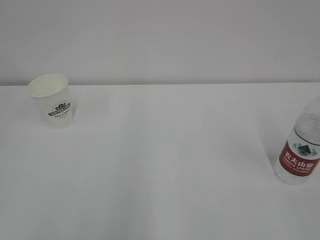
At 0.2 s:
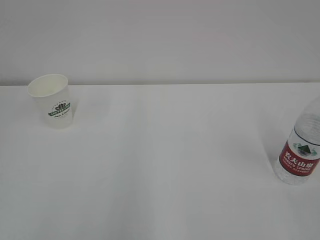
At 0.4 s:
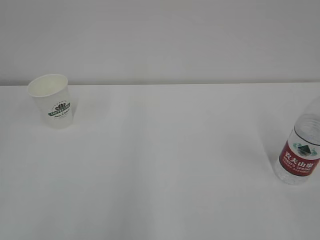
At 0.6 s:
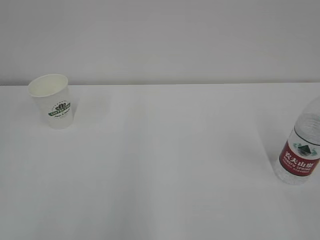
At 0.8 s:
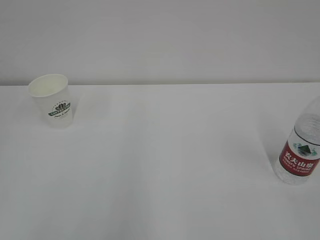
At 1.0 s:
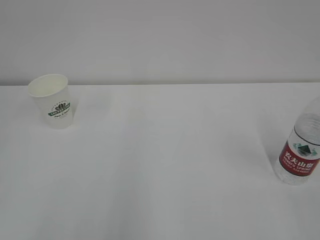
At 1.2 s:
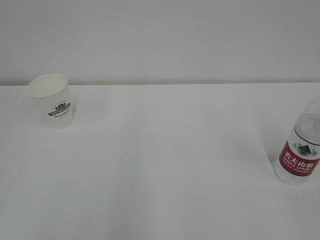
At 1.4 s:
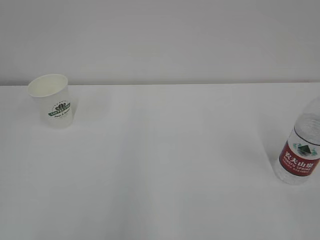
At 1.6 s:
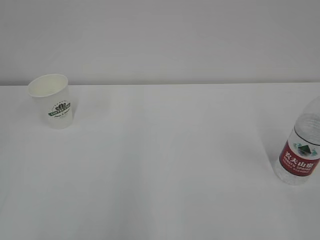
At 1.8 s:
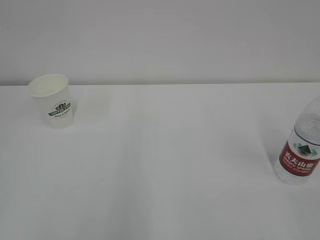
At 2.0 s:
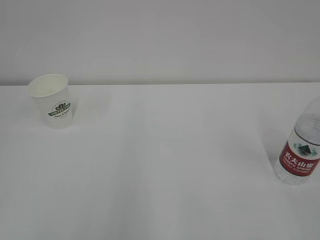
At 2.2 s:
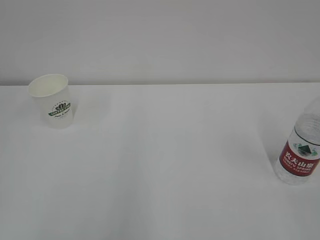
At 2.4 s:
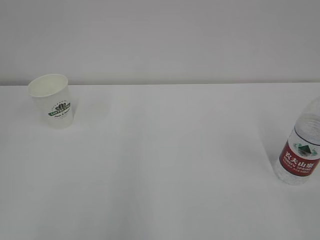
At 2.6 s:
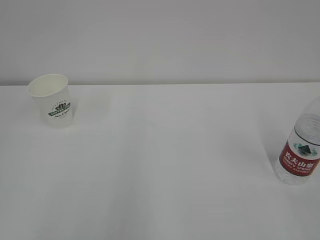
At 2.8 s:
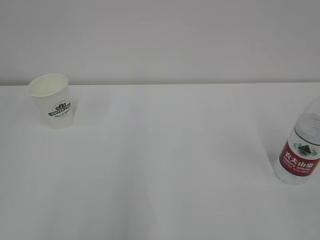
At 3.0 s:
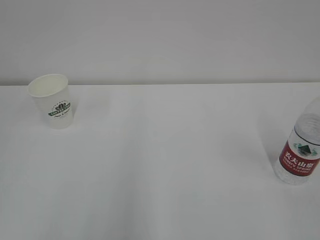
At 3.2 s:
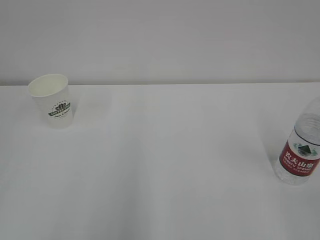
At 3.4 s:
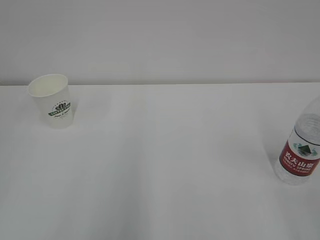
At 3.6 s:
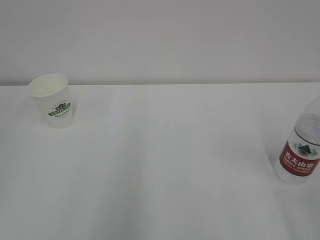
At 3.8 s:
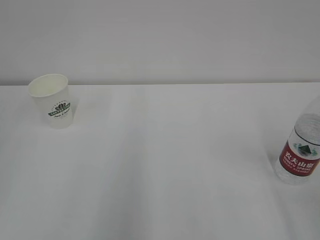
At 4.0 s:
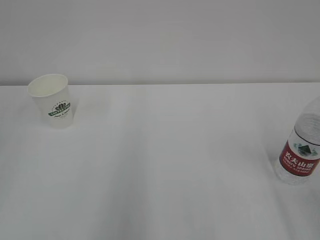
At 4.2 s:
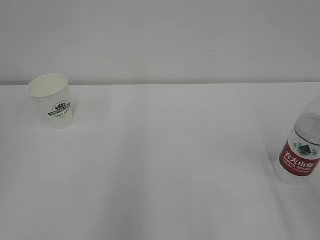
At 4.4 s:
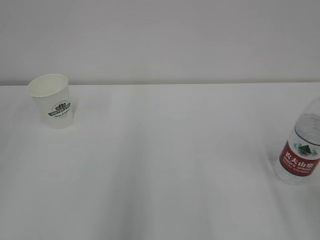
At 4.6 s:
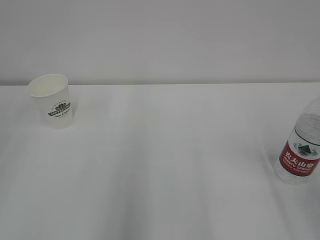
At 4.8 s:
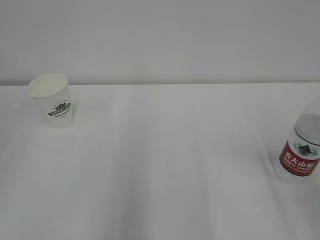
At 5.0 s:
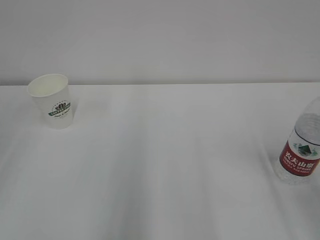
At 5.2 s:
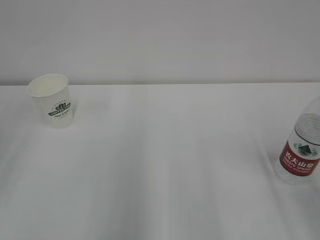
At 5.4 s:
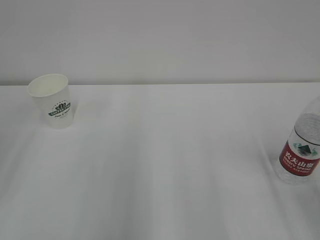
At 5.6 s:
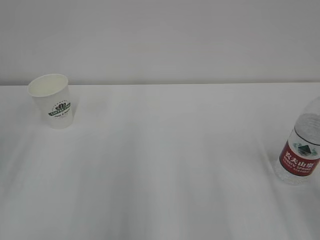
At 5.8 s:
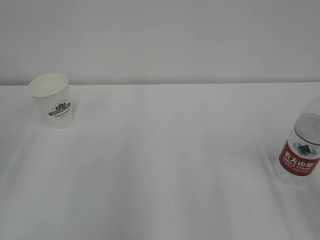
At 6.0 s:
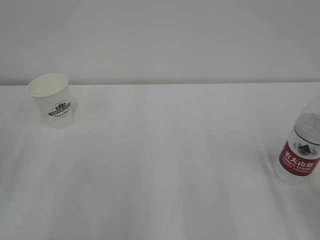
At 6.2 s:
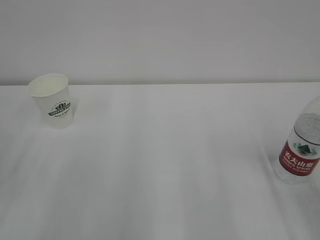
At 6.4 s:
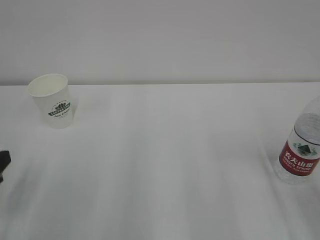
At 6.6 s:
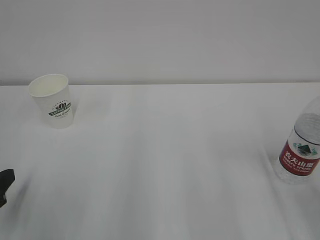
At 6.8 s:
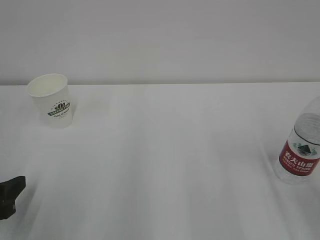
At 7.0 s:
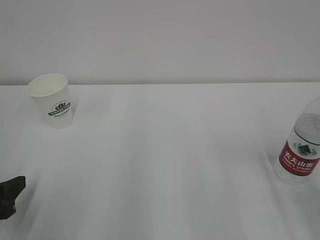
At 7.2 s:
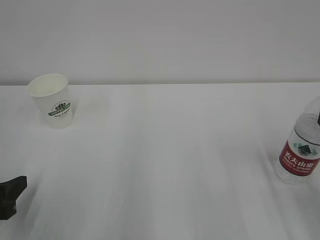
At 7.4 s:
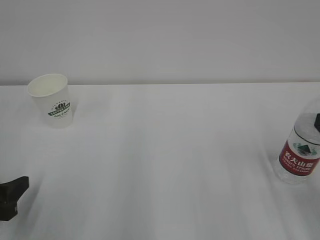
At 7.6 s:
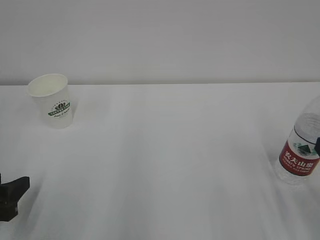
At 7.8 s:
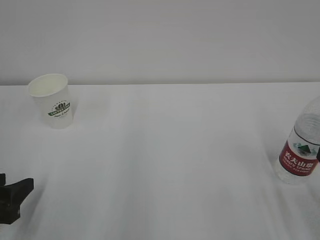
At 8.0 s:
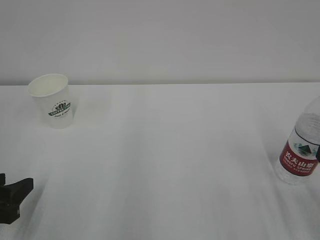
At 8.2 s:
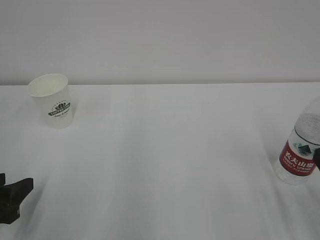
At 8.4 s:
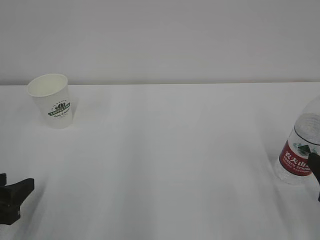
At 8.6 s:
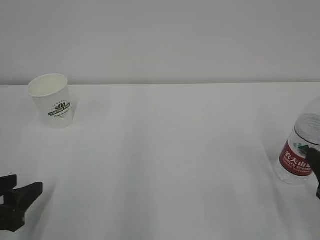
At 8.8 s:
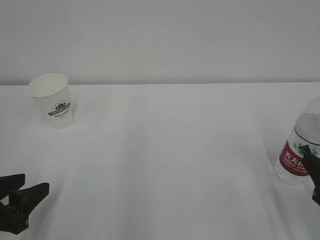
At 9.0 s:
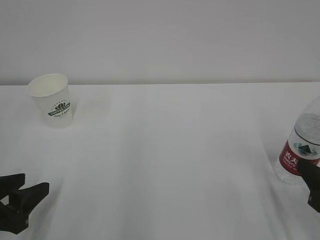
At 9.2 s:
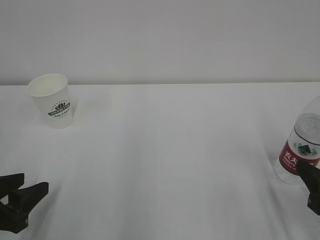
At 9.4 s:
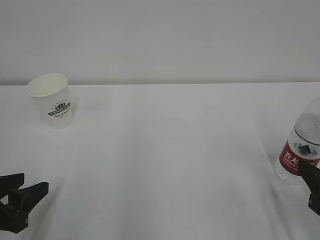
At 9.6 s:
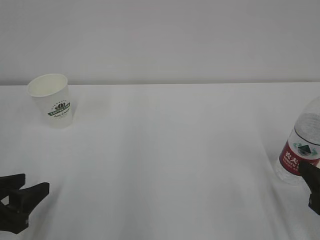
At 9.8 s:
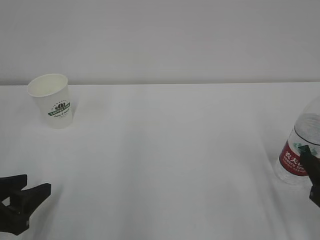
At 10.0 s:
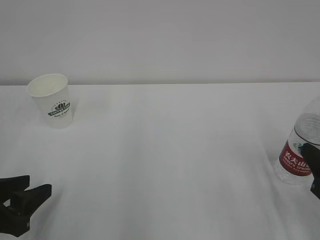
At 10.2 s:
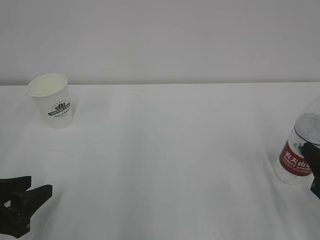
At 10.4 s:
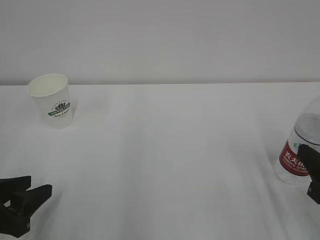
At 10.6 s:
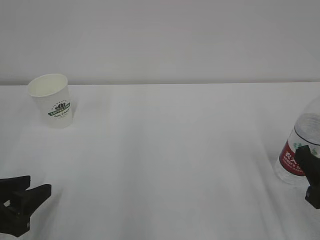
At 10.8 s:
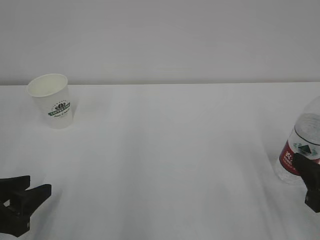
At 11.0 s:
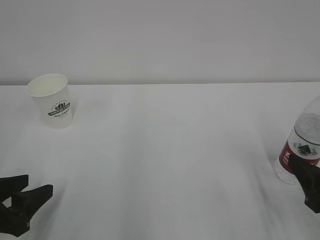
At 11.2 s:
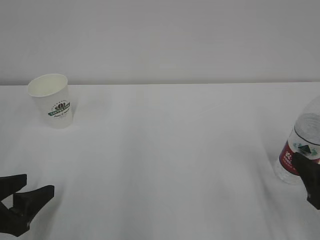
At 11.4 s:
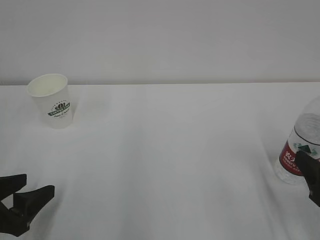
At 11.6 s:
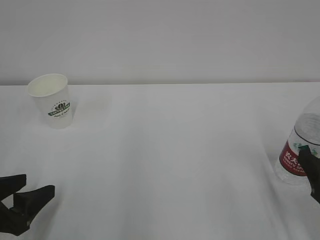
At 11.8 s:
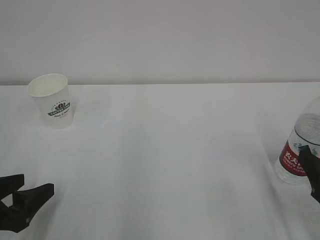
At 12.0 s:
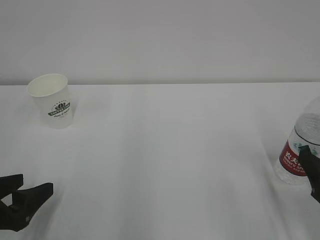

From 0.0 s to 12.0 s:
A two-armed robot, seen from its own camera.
From 6.0 s to 7.6 s: The left gripper is displaced downward by some 10 cm.
From 7.6 s to 10.4 s: The grippers make only small movements.
From 10.4 s to 12.0 s: The left gripper opens.

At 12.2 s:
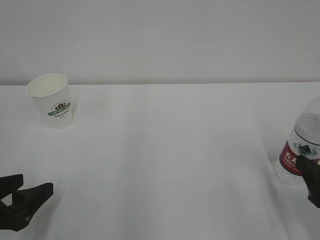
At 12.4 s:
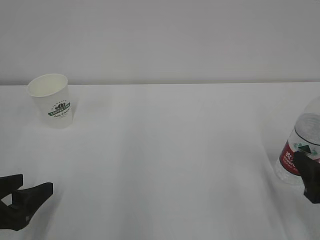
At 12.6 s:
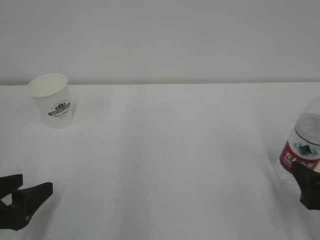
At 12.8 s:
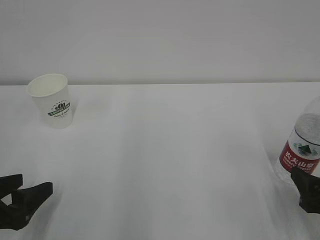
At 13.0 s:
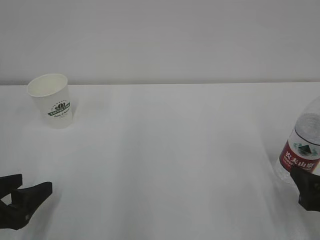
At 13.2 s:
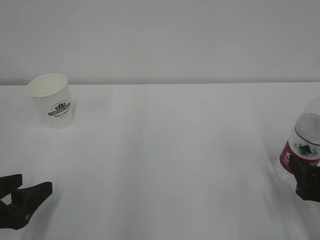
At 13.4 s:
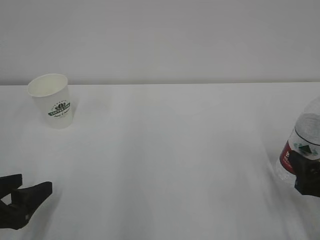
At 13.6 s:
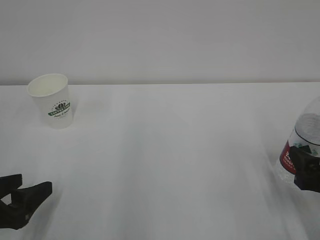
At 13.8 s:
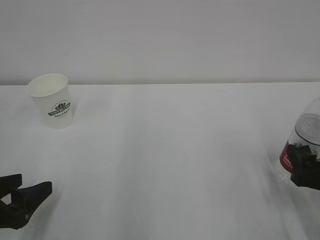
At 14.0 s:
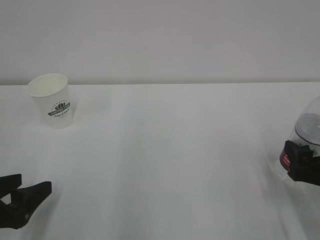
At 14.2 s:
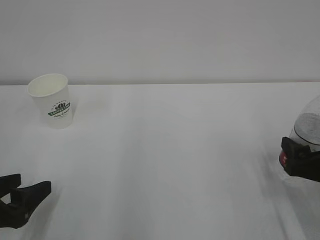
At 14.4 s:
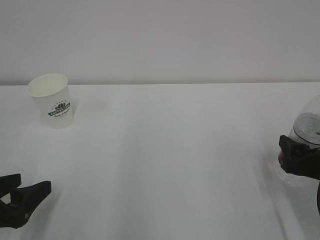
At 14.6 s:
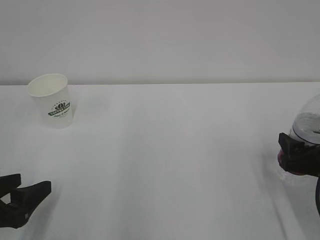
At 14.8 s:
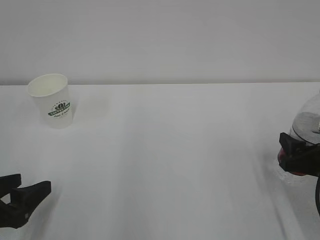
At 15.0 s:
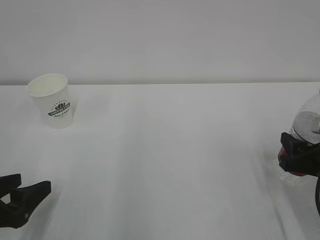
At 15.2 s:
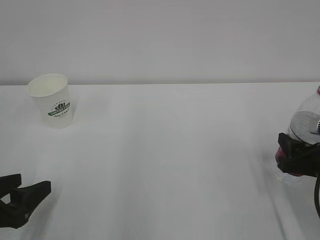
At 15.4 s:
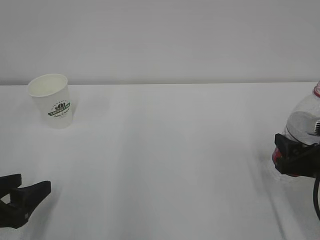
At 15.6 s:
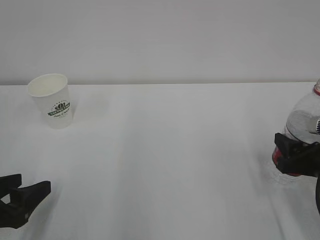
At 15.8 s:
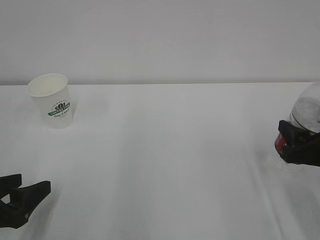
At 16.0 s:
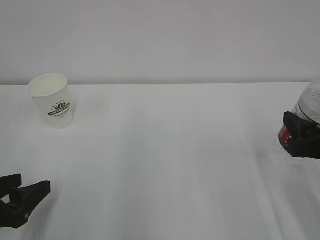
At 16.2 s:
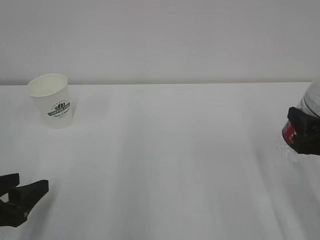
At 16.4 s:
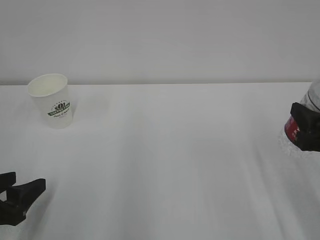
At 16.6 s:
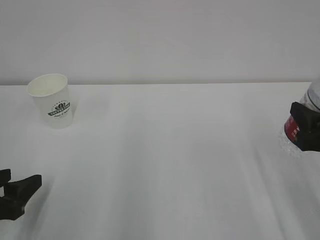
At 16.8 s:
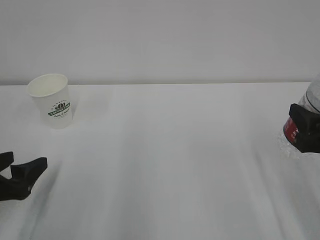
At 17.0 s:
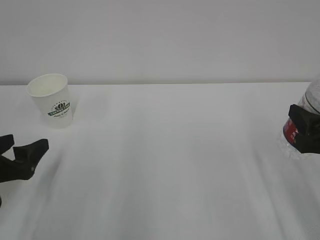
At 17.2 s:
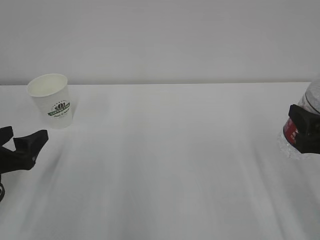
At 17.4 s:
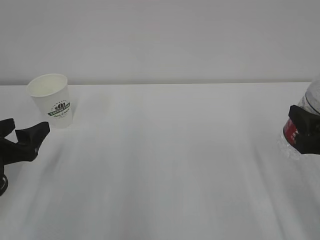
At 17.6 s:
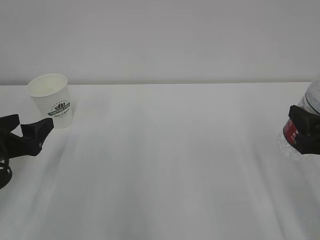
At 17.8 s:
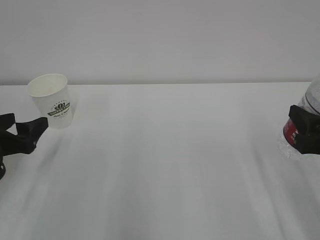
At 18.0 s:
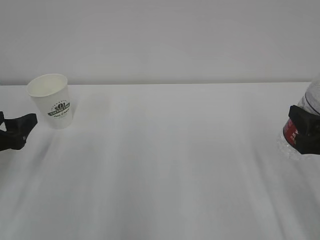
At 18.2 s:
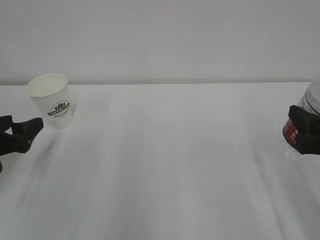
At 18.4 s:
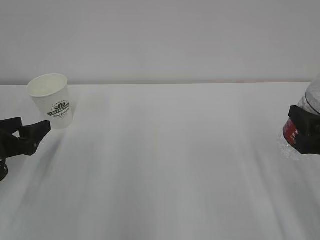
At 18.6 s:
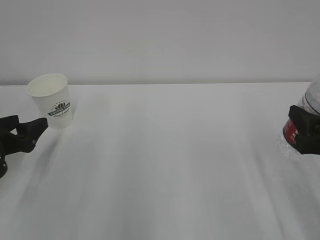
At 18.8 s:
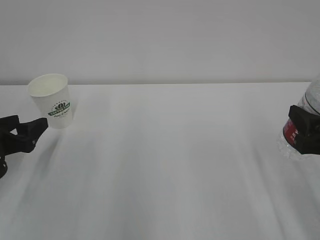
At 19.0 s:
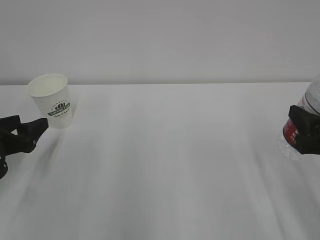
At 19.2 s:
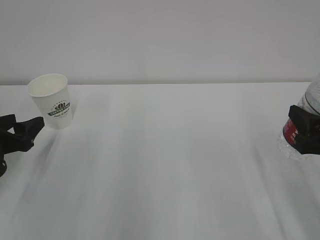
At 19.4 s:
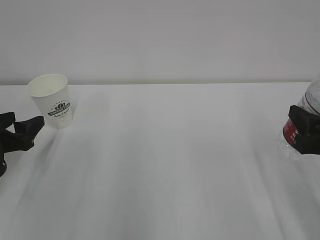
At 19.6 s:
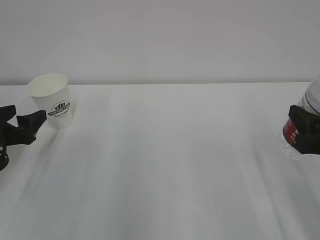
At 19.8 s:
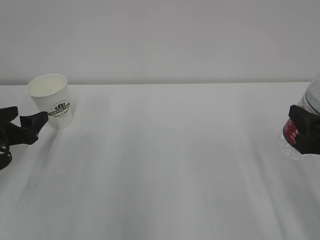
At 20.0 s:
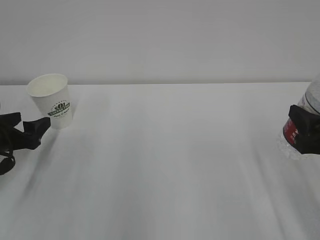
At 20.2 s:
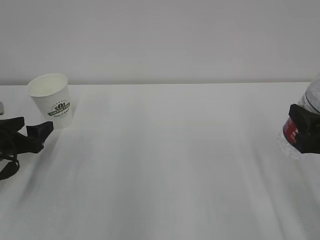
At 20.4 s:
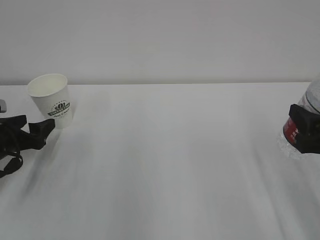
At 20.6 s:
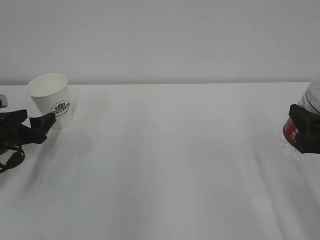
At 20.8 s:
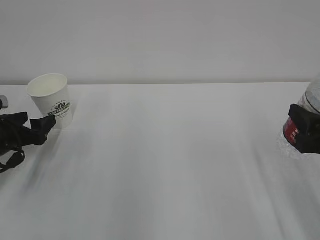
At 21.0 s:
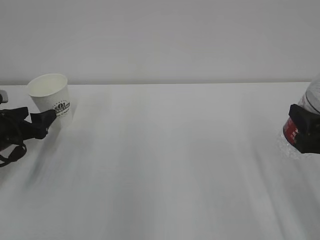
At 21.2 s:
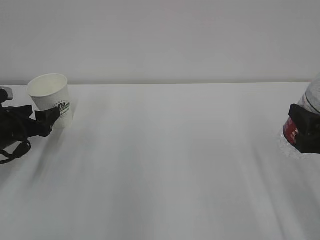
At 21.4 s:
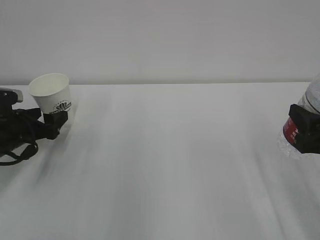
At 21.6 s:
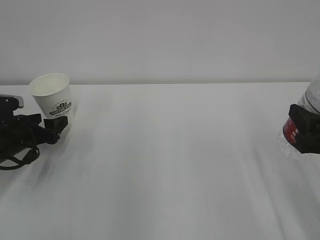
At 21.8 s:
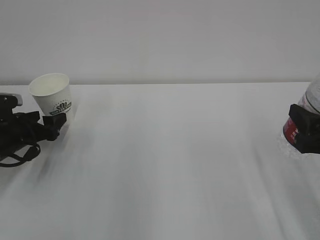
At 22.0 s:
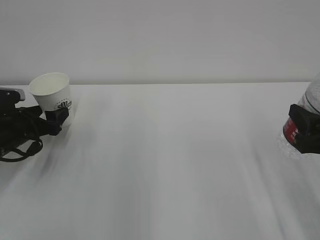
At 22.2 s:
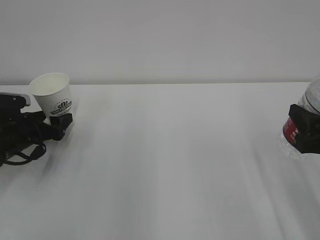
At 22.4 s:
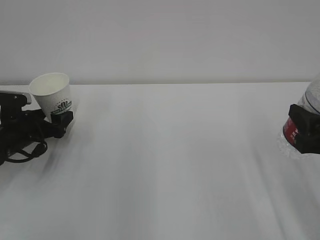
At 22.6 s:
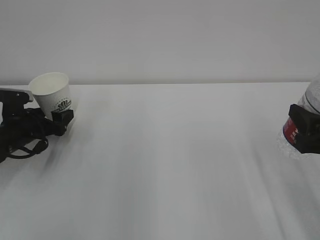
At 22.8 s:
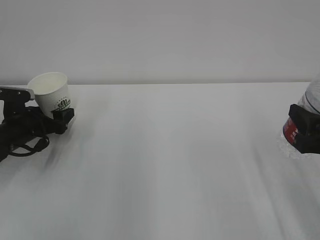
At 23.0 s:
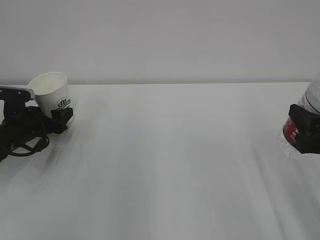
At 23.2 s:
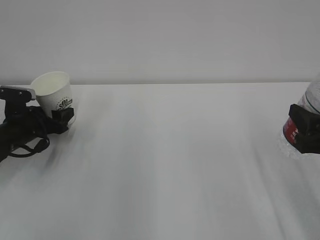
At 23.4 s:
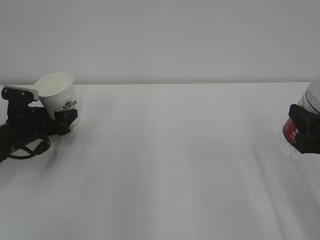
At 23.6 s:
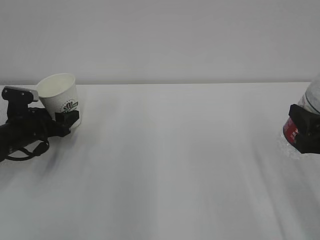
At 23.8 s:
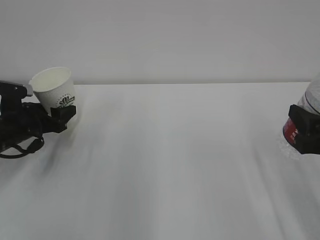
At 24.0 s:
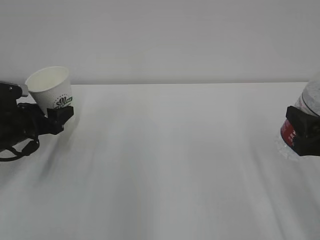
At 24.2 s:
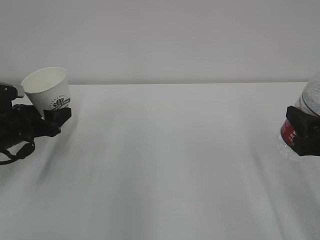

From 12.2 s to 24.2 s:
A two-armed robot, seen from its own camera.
From 12.2 s to 13.8 s: There are only small adjustments of the grippers.
From 13.8 s to 15.2 s: The right gripper closes up.
From 15.2 s to 16.6 s: The right gripper shifts some 5 cm upward.
From 16.6 s to 18.2 s: The left gripper goes roughly 10 cm forward.
From 18.2 s to 19.8 s: The grippers make only small movements.
From 19.8 s to 21.2 s: There are only small adjustments of the grippers.
From 21.2 s to 22.6 s: The left gripper shifts by roughly 5 cm.
From 22.6 s to 24.2 s: The left gripper changes place by approximately 5 cm, and closes its fingers.
